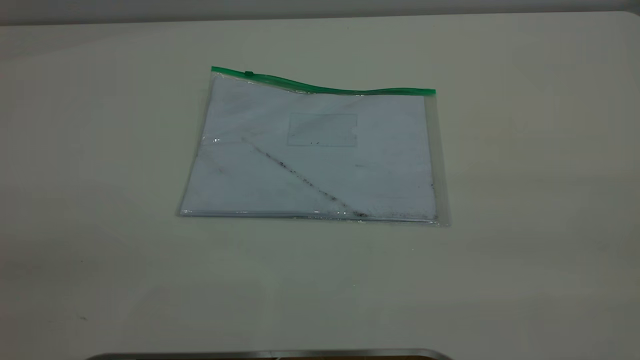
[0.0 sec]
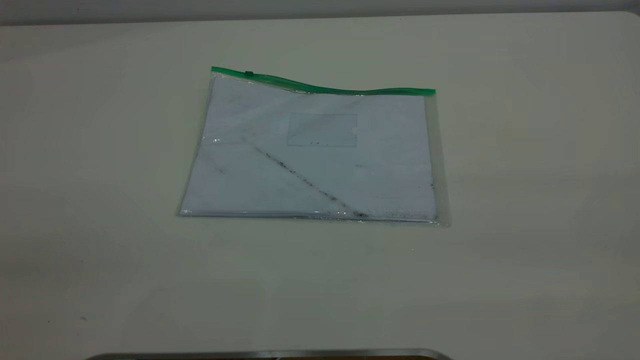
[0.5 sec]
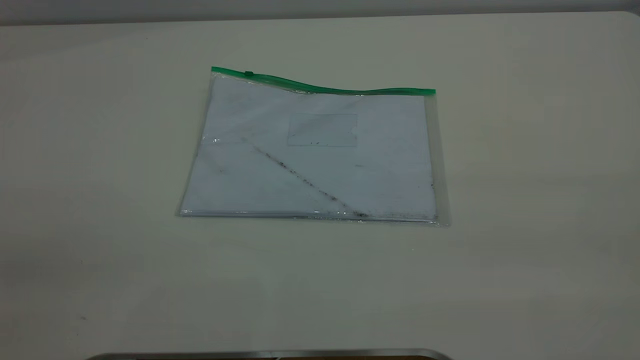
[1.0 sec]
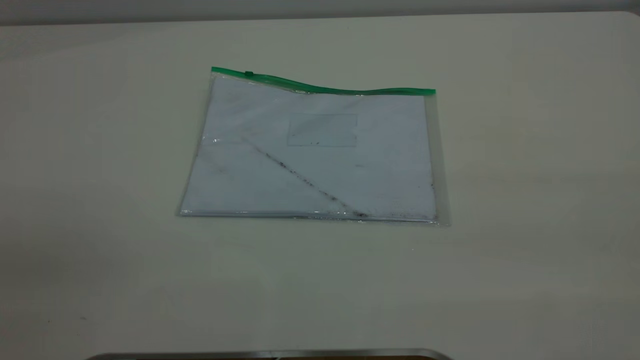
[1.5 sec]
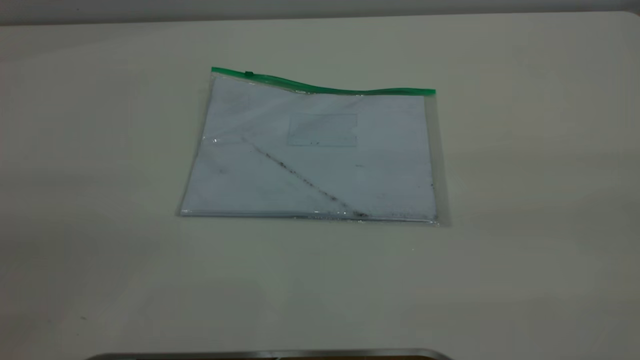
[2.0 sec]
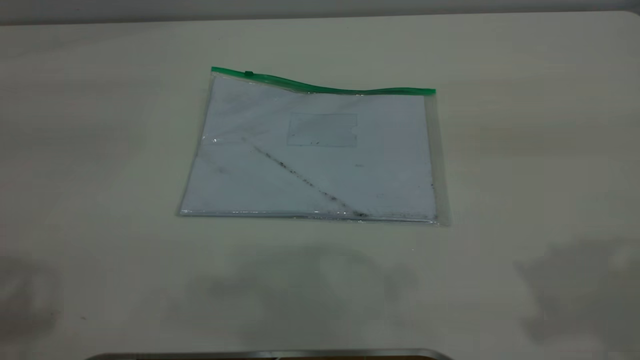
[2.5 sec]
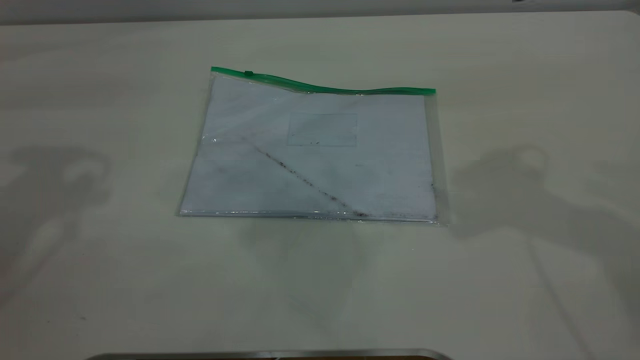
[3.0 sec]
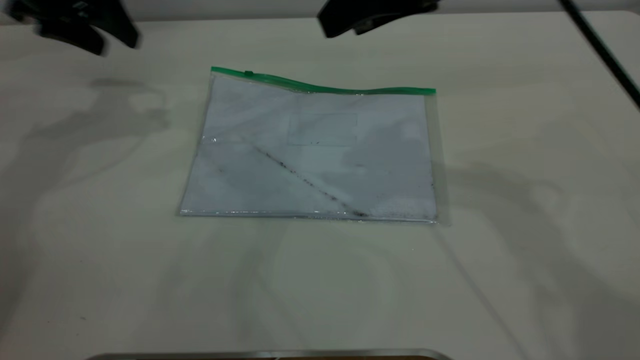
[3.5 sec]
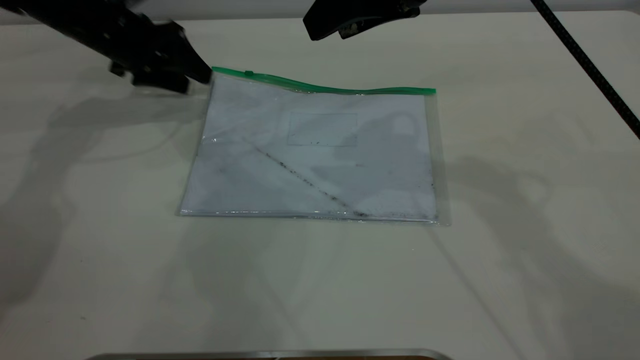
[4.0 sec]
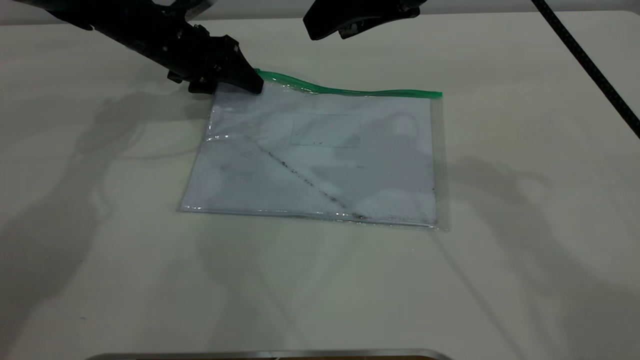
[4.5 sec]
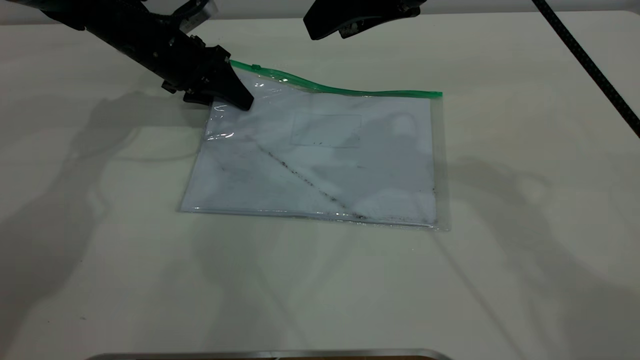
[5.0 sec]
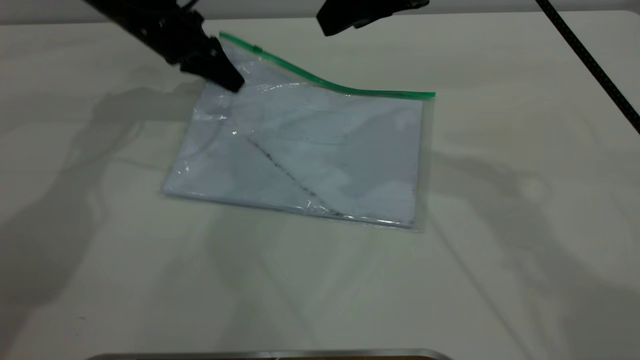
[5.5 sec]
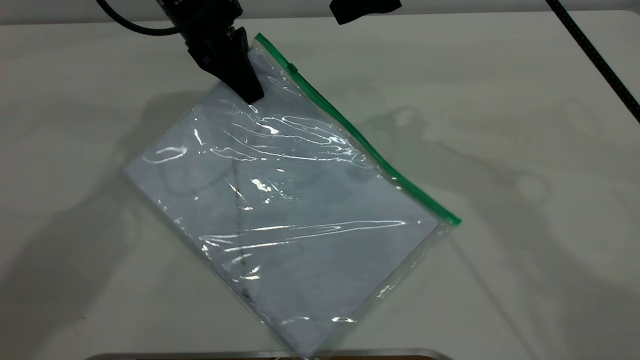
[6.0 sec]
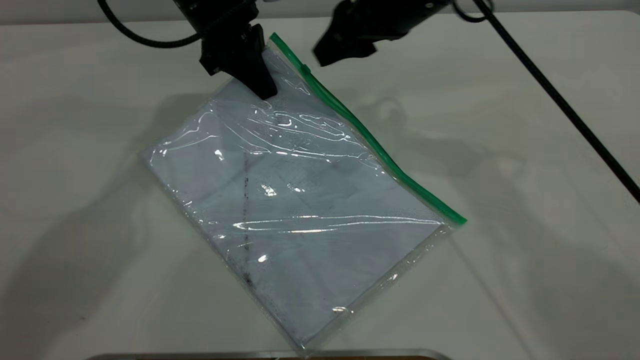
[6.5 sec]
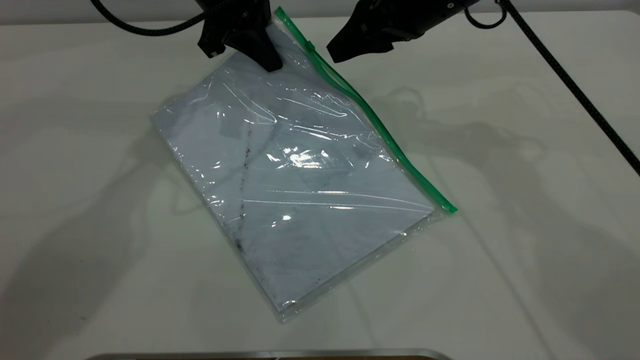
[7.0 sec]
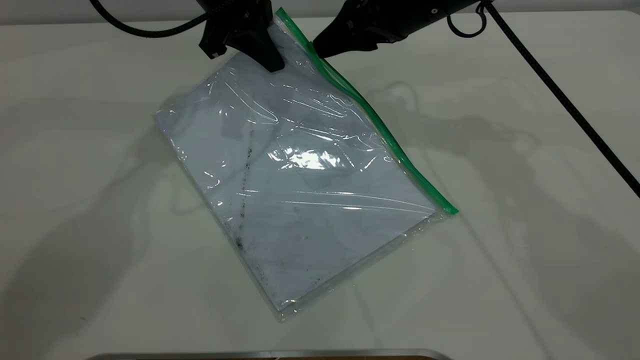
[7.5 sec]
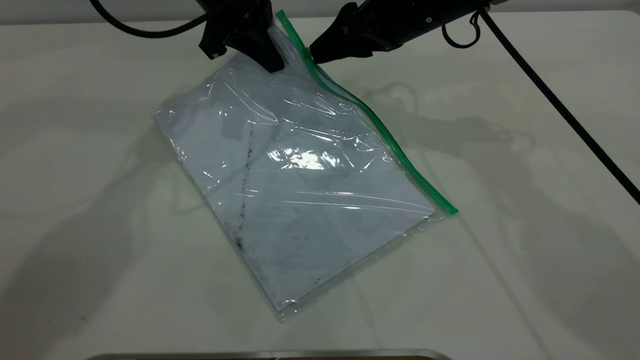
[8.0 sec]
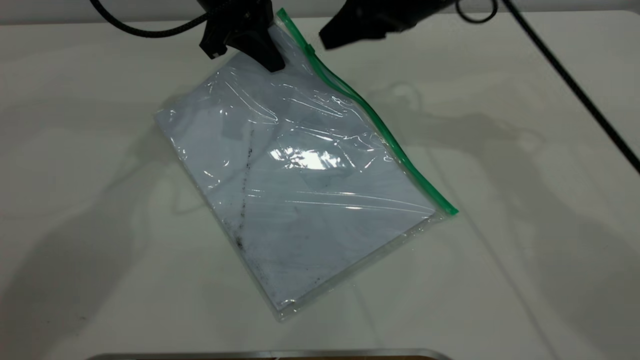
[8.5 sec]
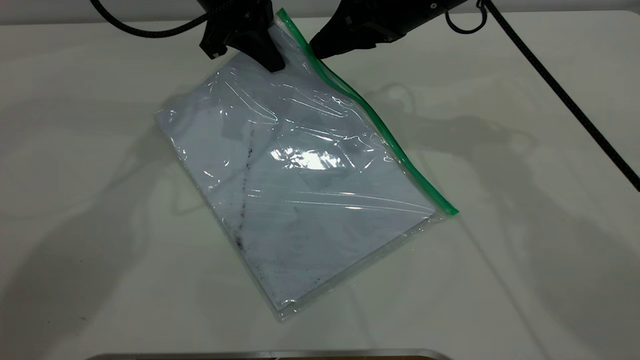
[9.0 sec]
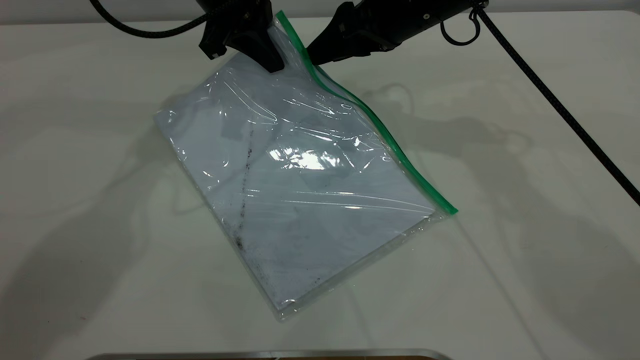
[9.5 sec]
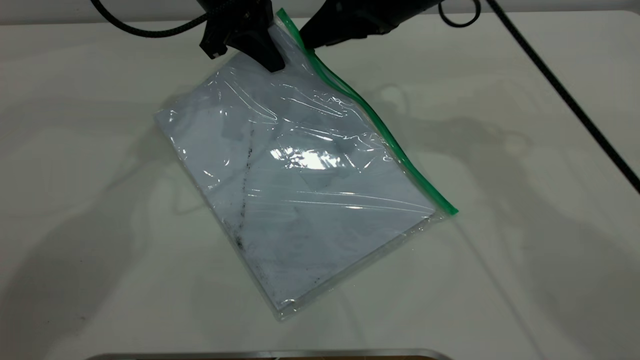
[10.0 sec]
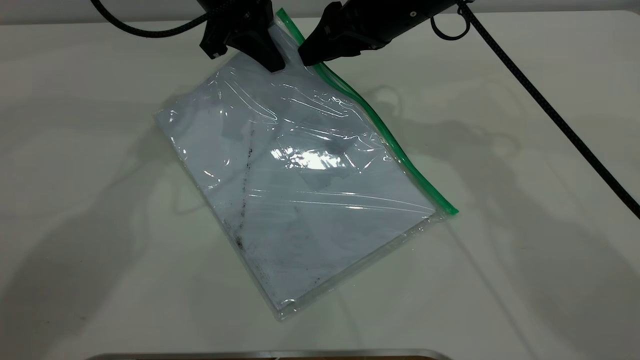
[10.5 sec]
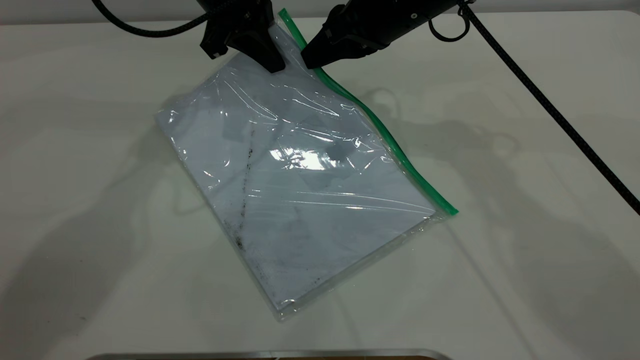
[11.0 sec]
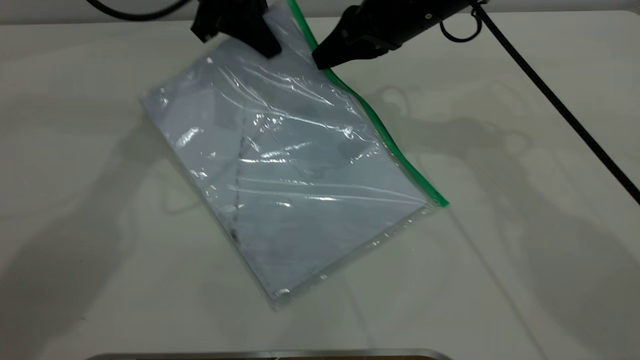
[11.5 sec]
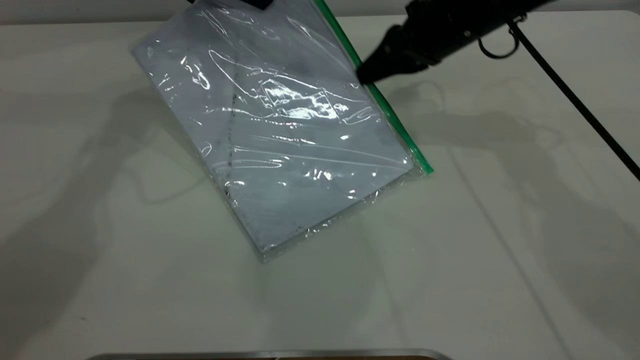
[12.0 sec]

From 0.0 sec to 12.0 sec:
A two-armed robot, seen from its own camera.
Step, from 0.0 sec to 5.5 sec: Pick up the transparent plastic bag with the left gripper.
From 2.0 sec to 4.0 sec: The left gripper goes some 60 cm forward and downward. Meanwhile the right gripper moves forward and to the left, approximately 40 cm.
From 4.0 sec to 6.0 sec: The left gripper heads to the right and upward, covering about 15 cm, and closes.
From 6.0 sec to 8.0 sec: The right gripper is displaced downward and forward by approximately 10 cm.
From 8.0 sec to 10.0 sec: The grippers stay close to where they were, moving slightly.
From 10.0 sec to 12.0 sec: The right gripper goes approximately 10 cm to the right and downward, and closes up. Meanwhile the left gripper shifts by roughly 5 cm.

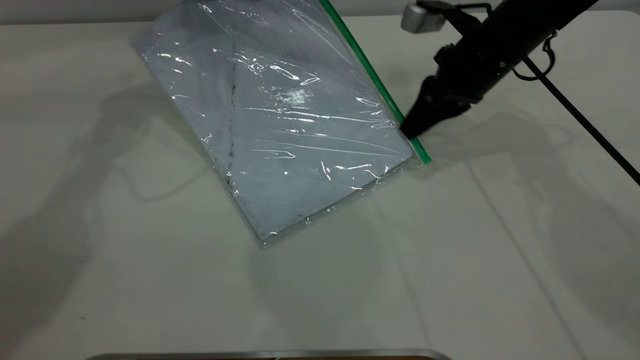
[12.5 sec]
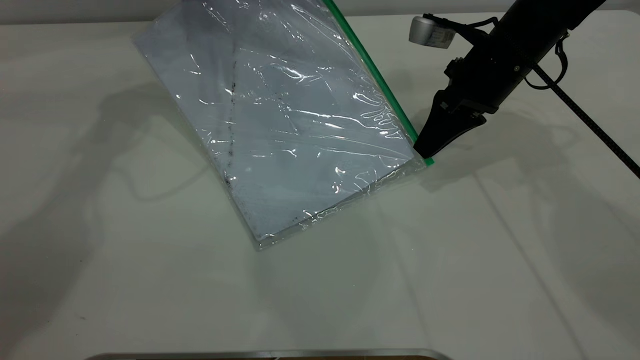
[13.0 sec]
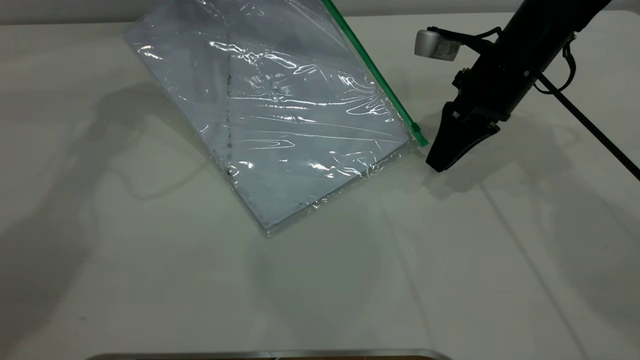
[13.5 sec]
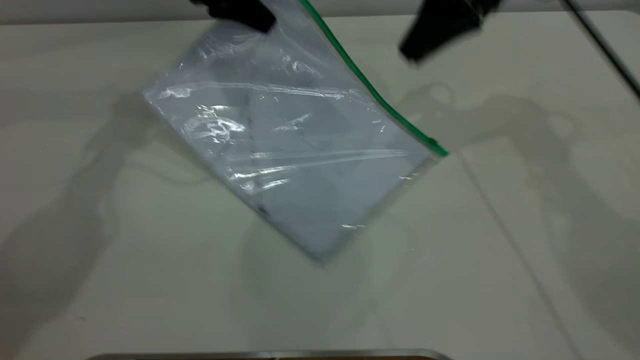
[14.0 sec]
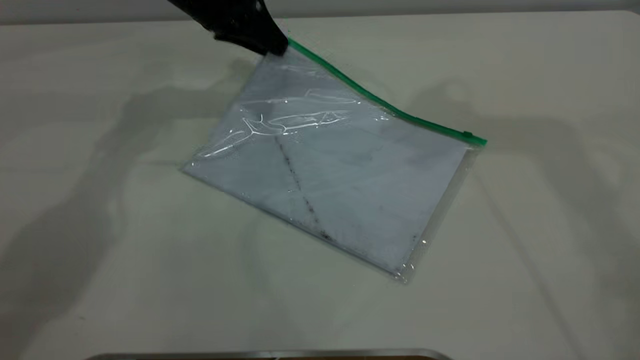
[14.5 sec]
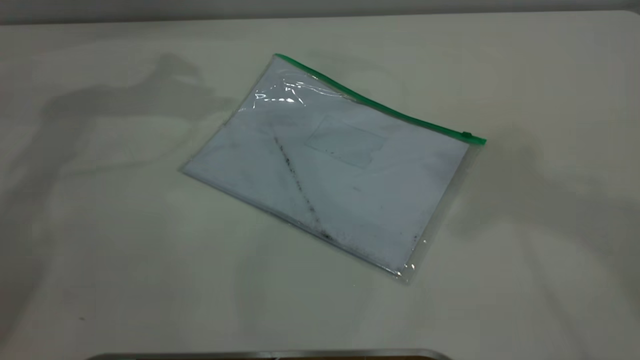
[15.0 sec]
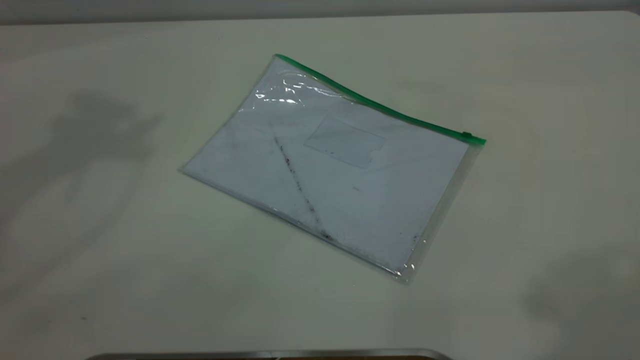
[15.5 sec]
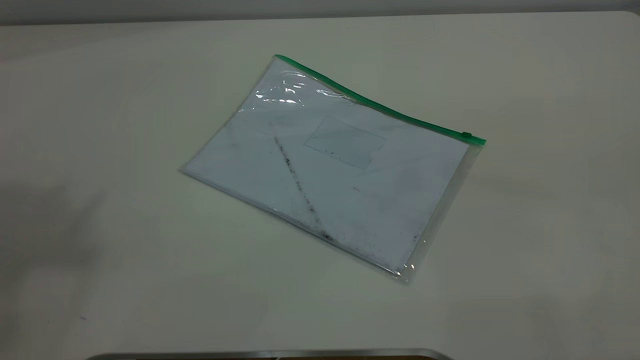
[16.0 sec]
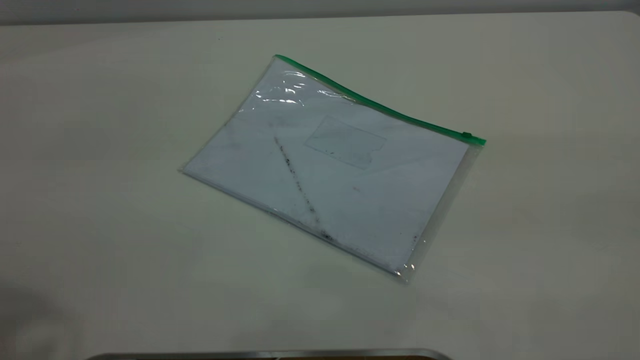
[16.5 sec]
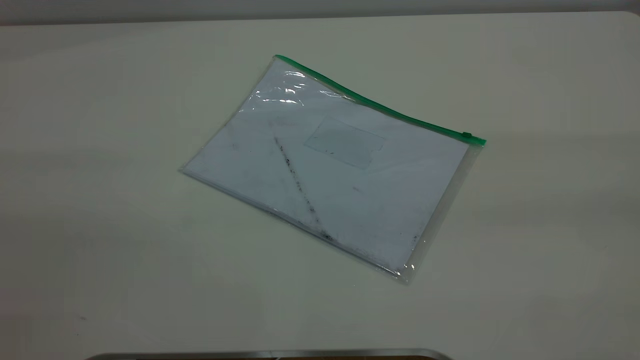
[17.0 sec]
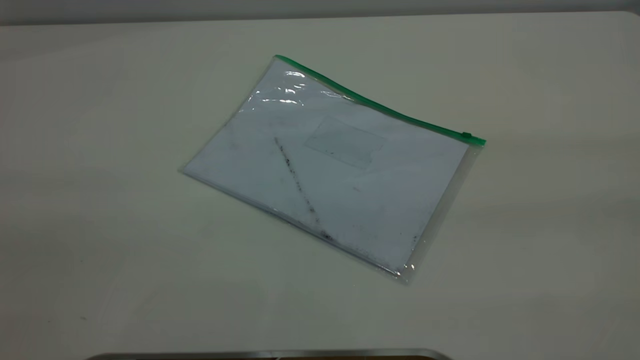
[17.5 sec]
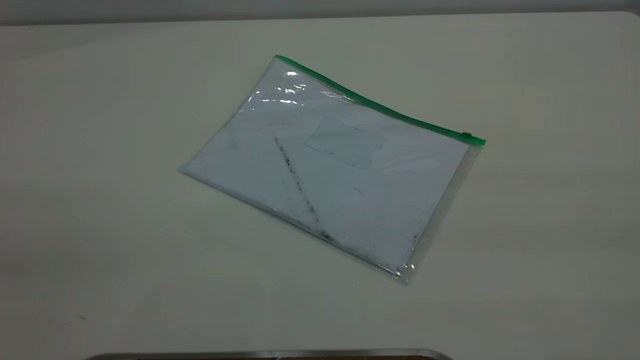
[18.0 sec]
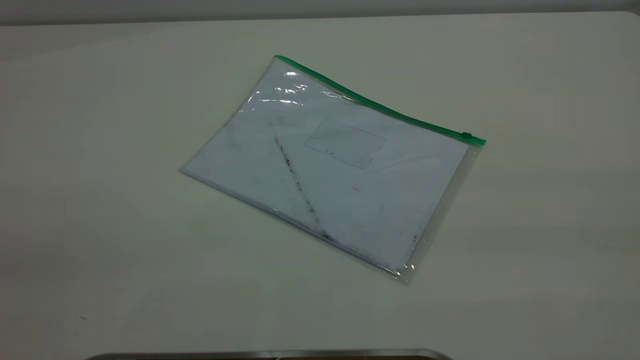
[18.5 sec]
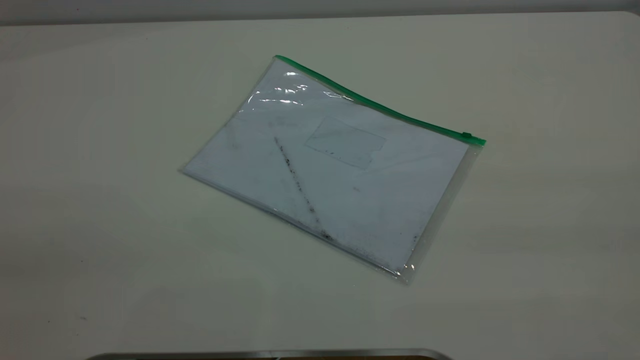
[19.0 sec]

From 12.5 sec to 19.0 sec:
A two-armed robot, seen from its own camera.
Step, from 13.5 sec to 14.5 sec: Place the transparent plastic bag.
From 12.5 sec to 14.5 sec: The right gripper goes some 30 cm upward, and opens. Meanwhile the left gripper moves downward, some 5 cm, and opens.
From 14.5 sec to 17.0 sec: The right gripper shifts about 35 cm backward. The left gripper travels backward and upward by roughly 50 cm.
